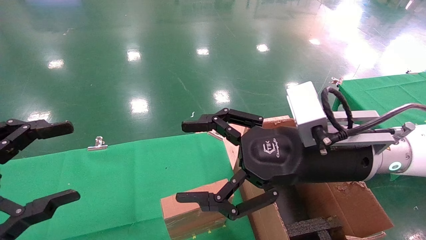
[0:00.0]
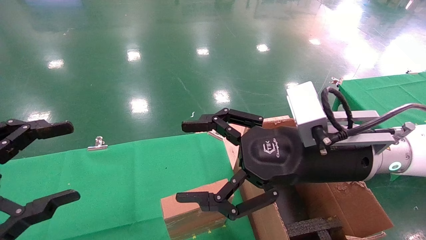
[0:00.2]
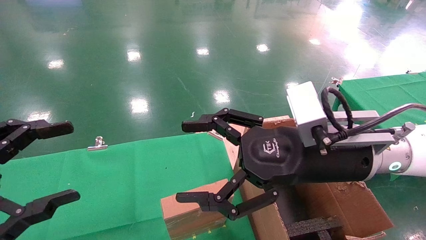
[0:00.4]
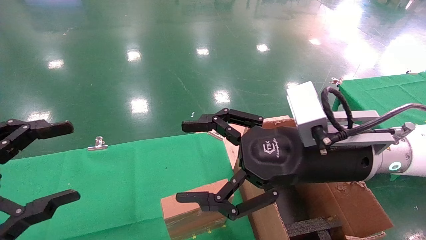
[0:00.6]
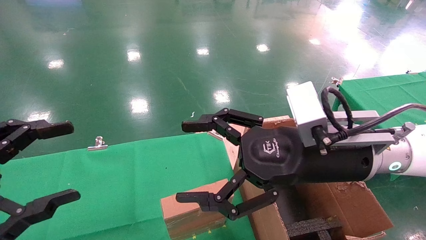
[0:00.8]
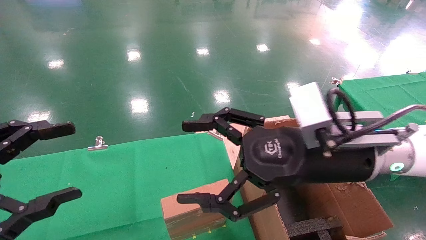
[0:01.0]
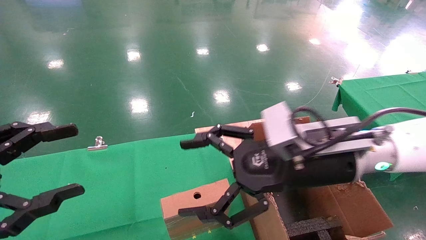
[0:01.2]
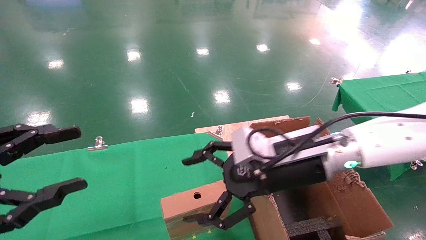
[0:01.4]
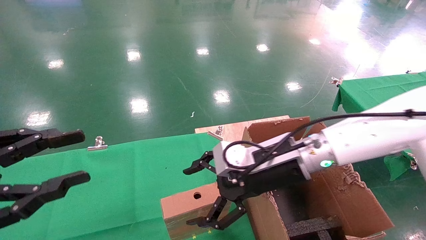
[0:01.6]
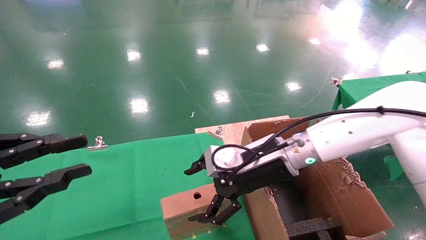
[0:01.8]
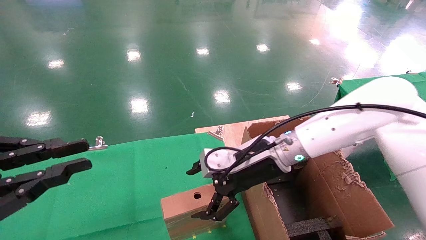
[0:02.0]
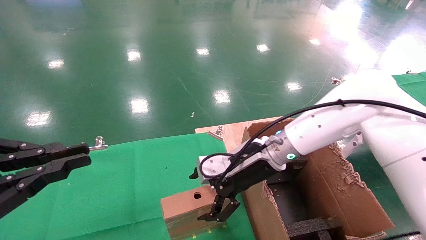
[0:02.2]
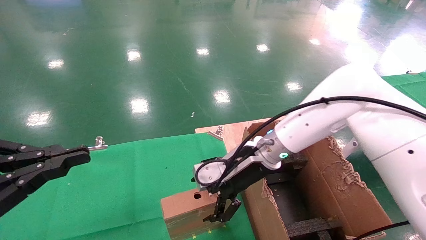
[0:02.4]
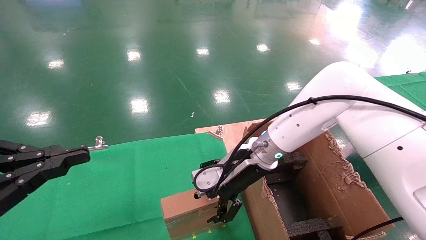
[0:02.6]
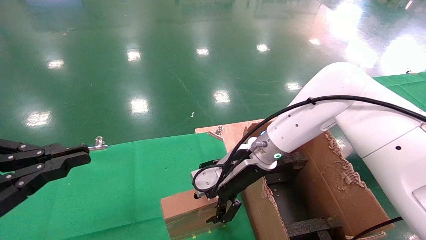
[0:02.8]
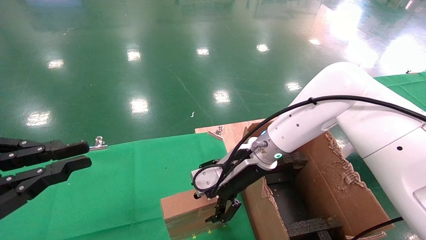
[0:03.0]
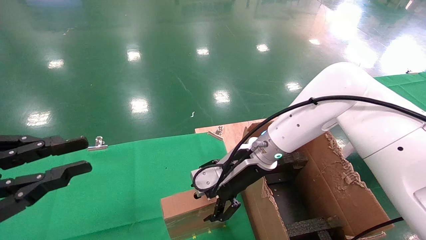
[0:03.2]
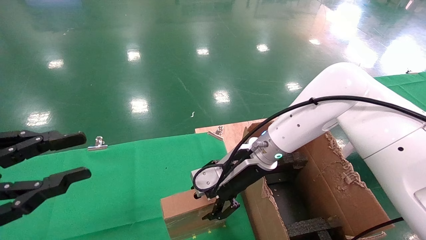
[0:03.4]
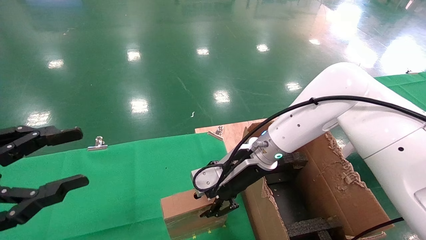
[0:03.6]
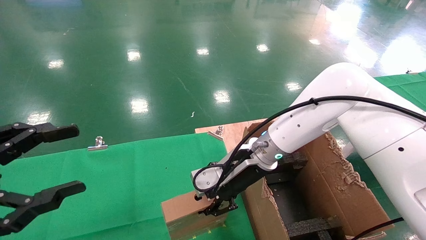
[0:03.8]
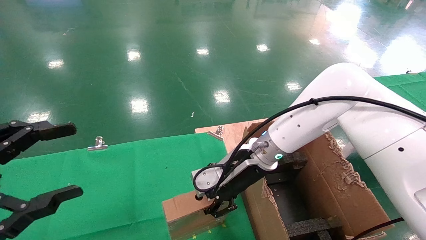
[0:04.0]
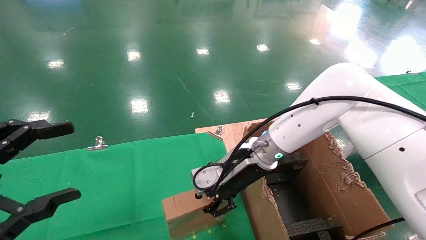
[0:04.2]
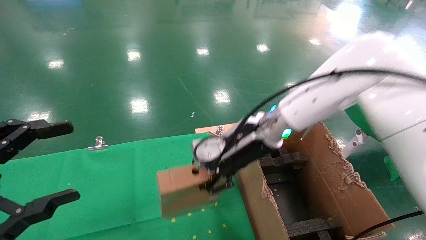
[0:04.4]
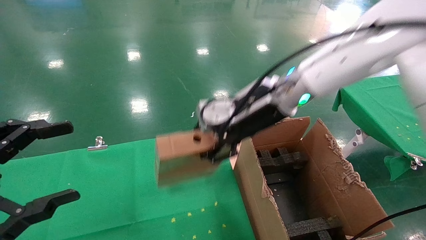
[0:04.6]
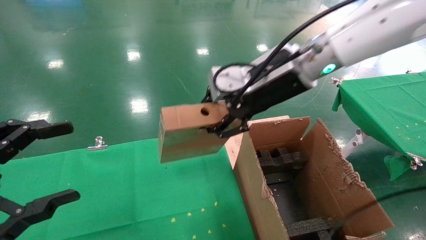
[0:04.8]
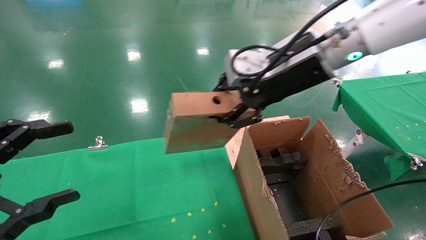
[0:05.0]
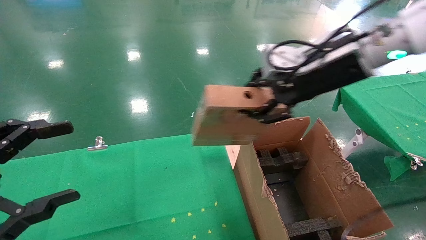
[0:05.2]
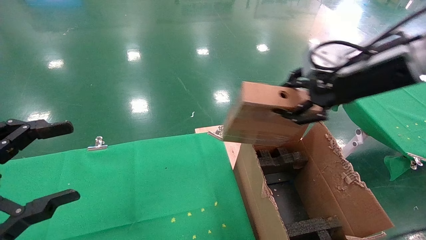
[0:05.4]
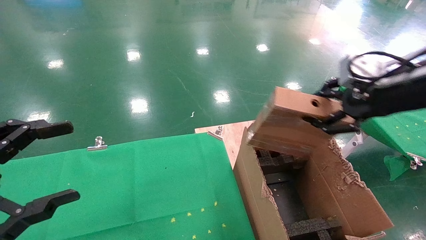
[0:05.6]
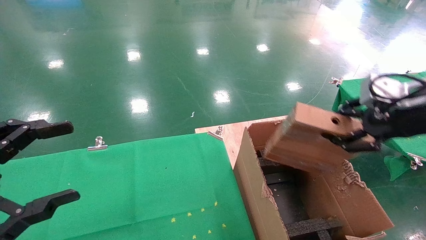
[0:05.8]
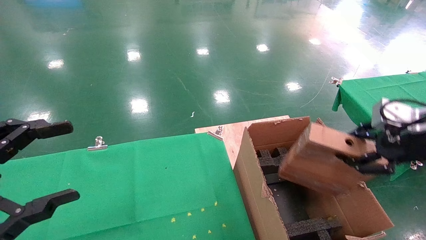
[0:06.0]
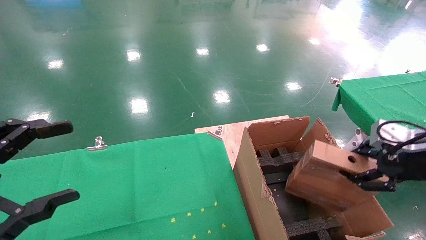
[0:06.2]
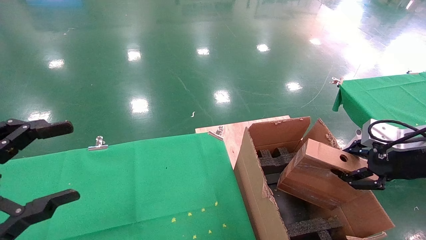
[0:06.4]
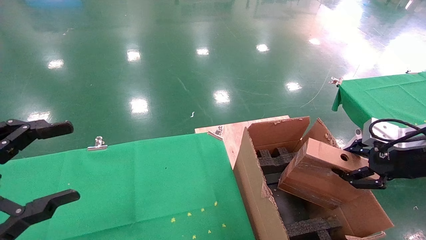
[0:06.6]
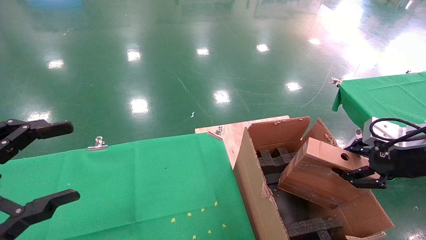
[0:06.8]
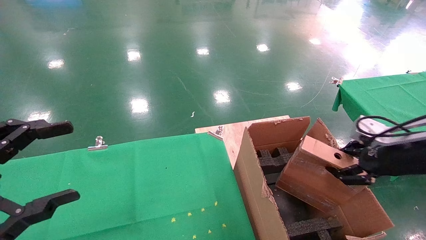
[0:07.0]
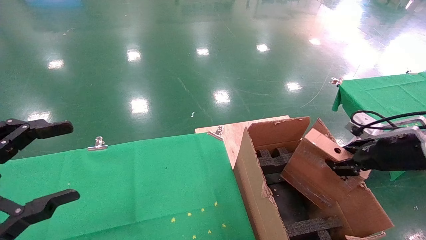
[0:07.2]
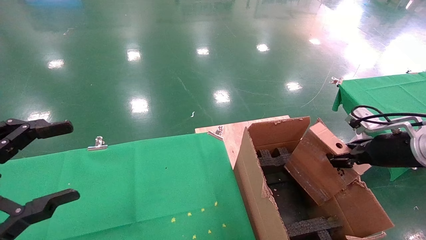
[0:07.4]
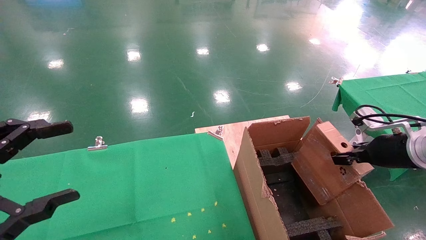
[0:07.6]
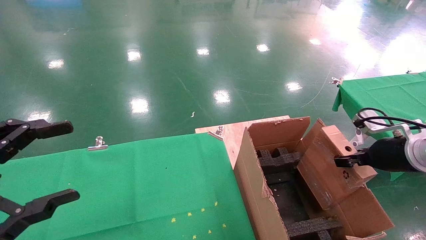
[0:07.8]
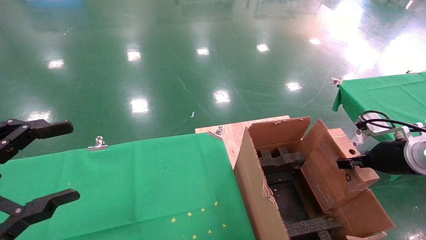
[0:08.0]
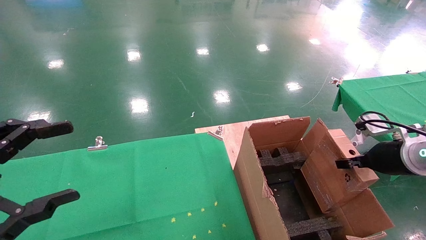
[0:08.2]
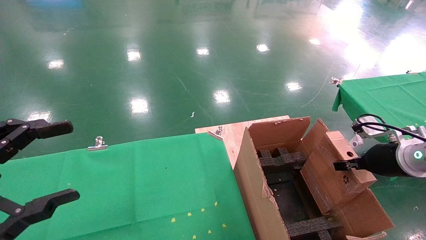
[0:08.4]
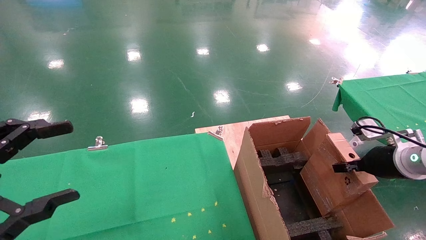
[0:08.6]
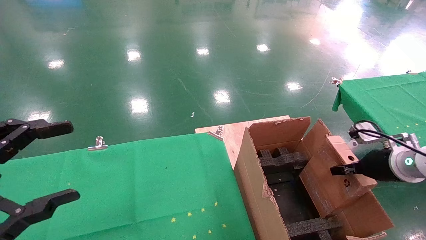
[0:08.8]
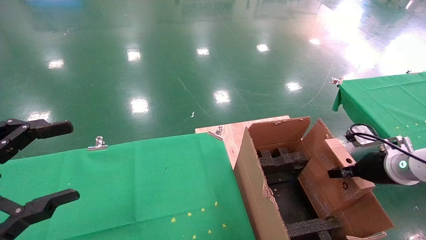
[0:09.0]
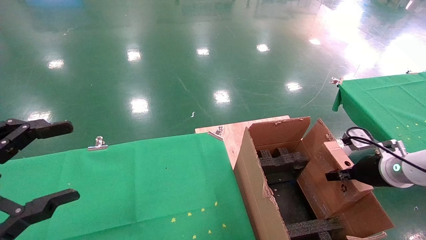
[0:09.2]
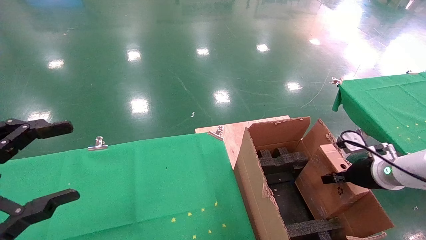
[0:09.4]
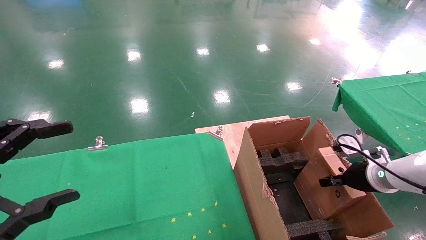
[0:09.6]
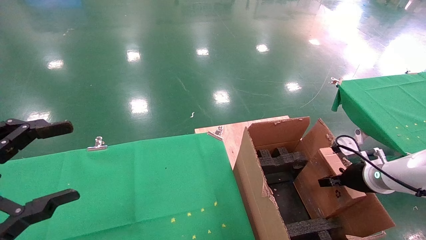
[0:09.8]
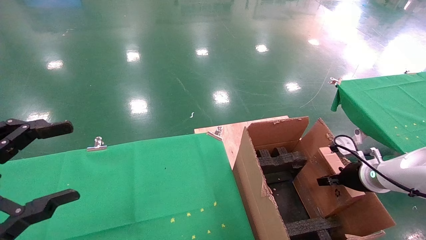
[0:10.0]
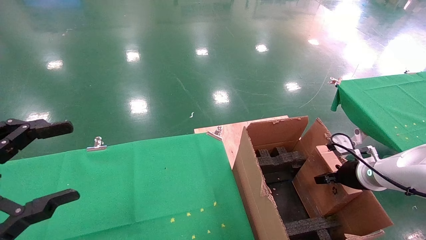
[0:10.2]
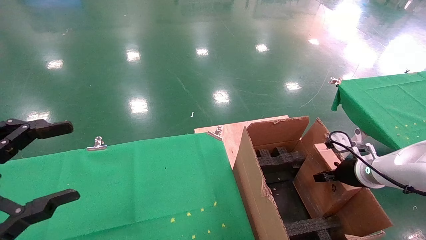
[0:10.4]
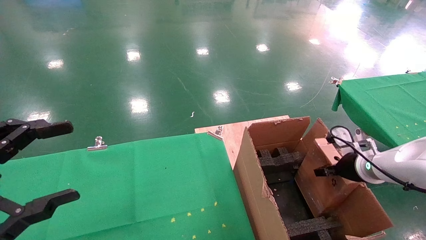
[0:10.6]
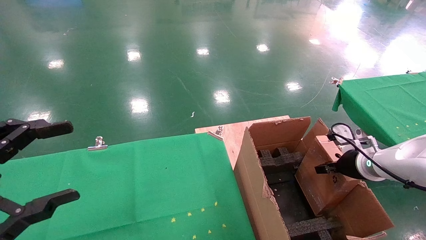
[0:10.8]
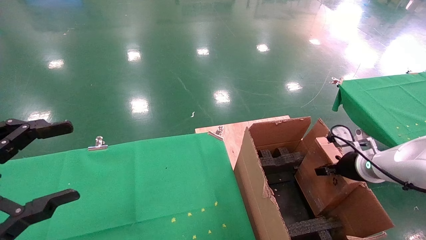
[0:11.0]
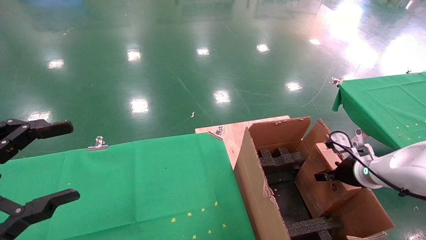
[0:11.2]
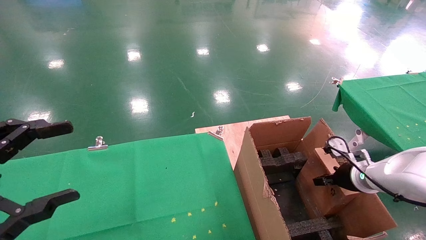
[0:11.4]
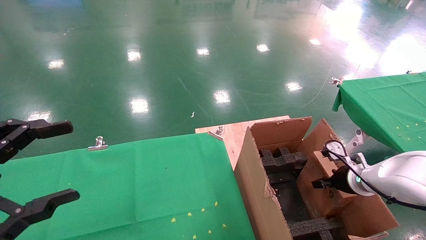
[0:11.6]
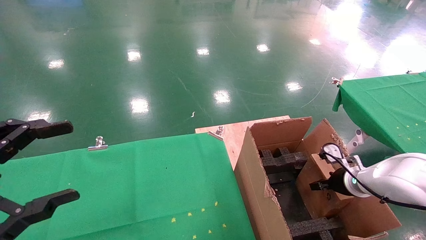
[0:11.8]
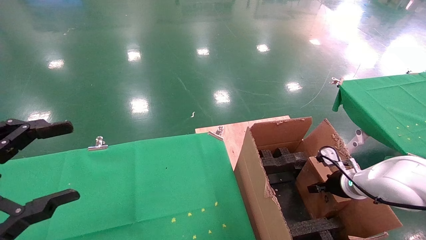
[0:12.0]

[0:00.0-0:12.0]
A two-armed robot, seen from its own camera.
Task of the whole recording: using a robotic arm to pick up a cardboard box and palace it the carton.
Step, 0:01.2 to 0:03.8: Pick up the mouse and the power cord paper box.
0:00.0 to 0:01.6: The right gripper is displaced forward by about 10 cm. Meanwhile the left gripper closes.
0:01.6 to 0:03.0: The right gripper is displaced forward by about 5 cm; the left gripper closes.
0:03.0 to 0:04.4: The right gripper is displaced upward by some 5 cm, and closes, while the left gripper opens.
0:04.4 to 0:06.0: The right gripper travels to the right and backward by about 30 cm.
0:06.0 to 0:07.6: The right gripper goes approximately 10 cm downward and forward.
0:07.6 to 0:09.0: The right gripper moves downward, approximately 5 cm.
0:09.0 to 0:10.4: The right gripper ends up about 5 cm from where it was.
0:10.4 to 0:12.0: The right gripper heads downward, covering about 5 cm.

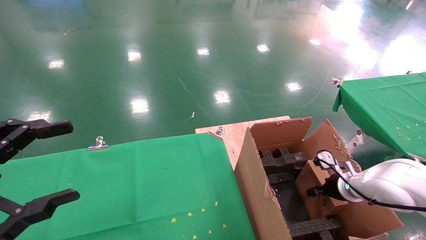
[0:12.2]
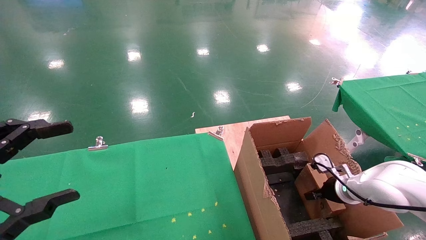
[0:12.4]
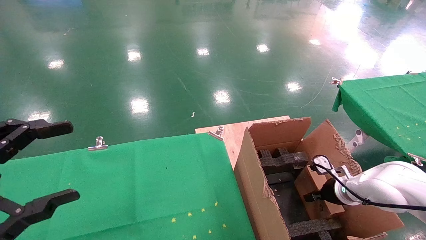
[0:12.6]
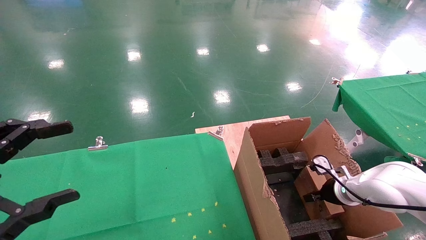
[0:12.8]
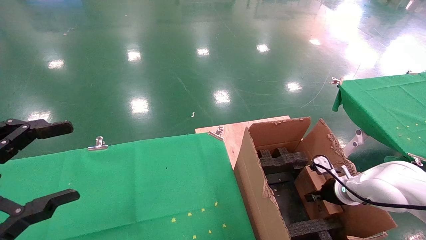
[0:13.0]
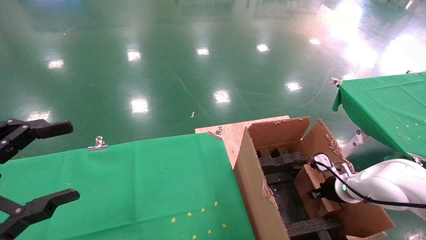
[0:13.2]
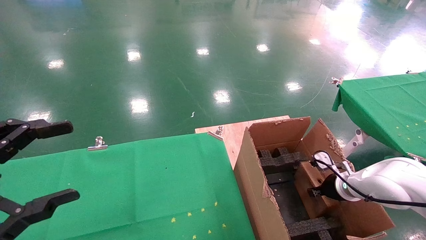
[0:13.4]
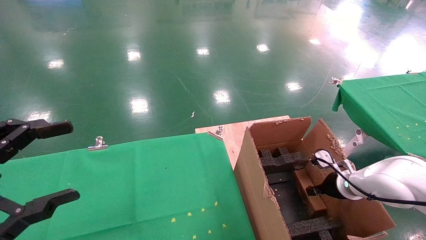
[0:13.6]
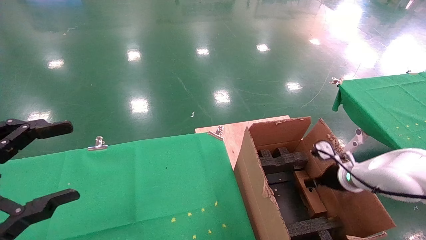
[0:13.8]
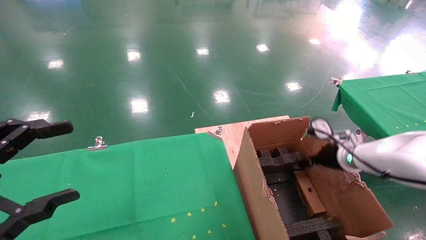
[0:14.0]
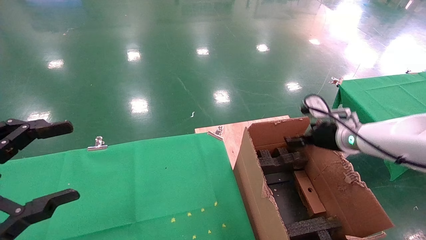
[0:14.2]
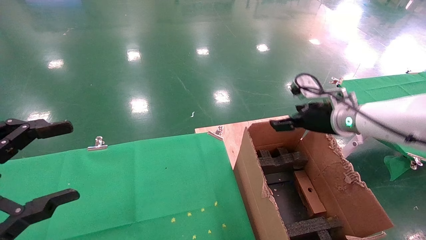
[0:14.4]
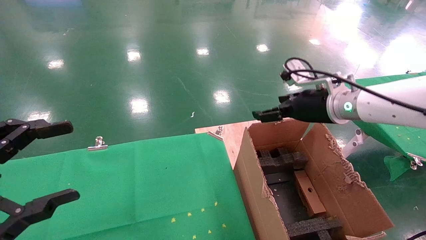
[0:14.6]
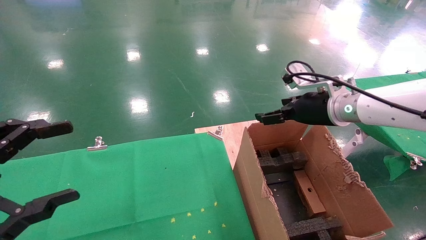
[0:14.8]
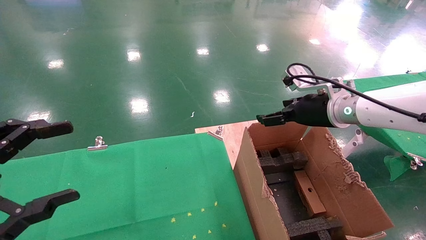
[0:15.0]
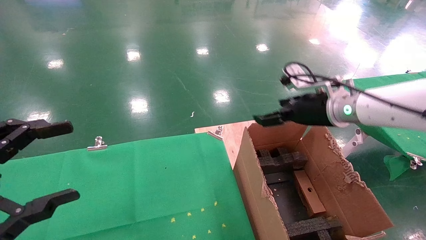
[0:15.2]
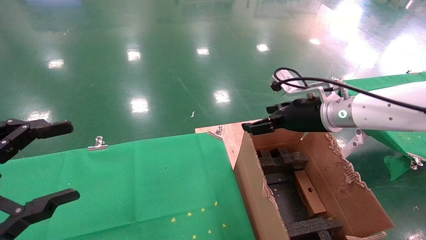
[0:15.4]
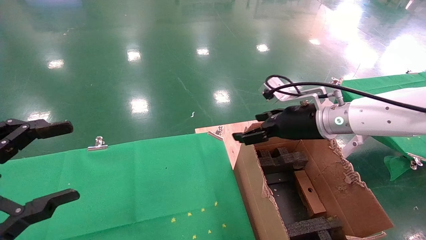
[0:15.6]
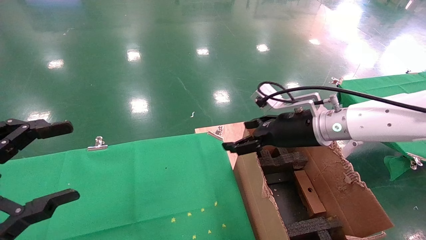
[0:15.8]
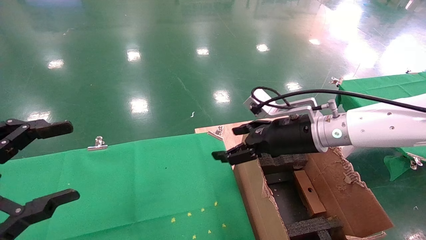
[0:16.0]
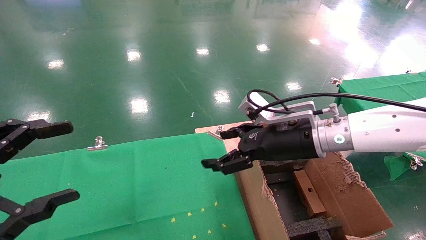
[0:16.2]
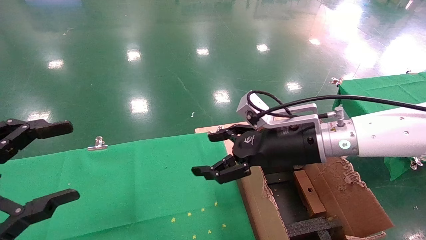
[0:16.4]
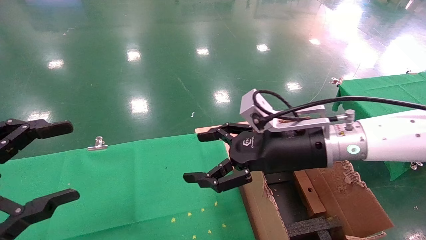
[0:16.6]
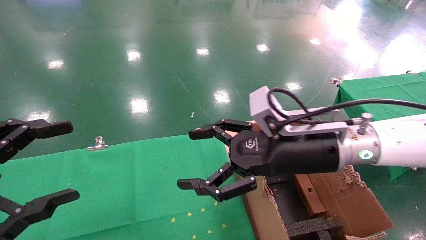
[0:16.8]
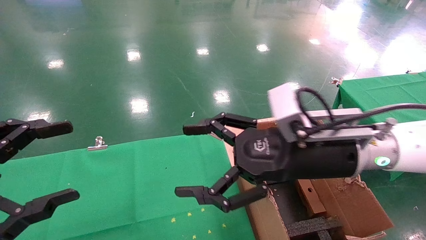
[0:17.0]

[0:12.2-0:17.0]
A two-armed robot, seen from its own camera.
Task of the whole recording: using a robotic arm to pick up a cardboard box and palace it the carton.
Step, 0:12.2 to 0:14.2: Place the mouse and the power cord paper box into the container.
0:12.2 to 0:13.8: The right gripper is displaced upward by roughly 5 cm, and opens up.
0:13.8 to 0:15.4: The right gripper heads upward and to the left, covering about 20 cm.
0:15.4 to 0:17.0: The right gripper moves backward and to the left, approximately 15 cm.
